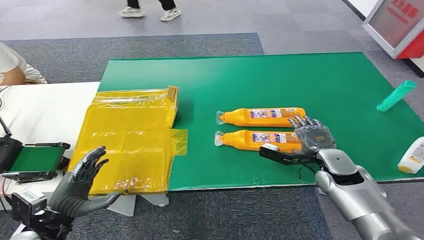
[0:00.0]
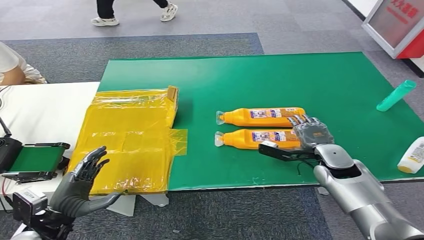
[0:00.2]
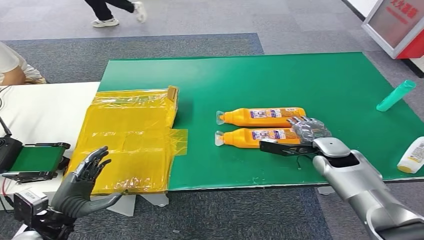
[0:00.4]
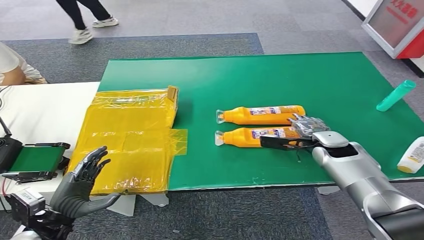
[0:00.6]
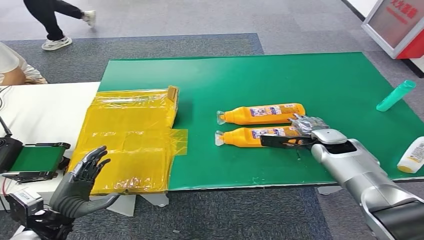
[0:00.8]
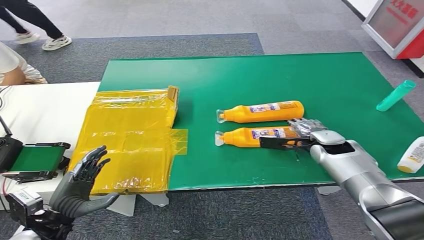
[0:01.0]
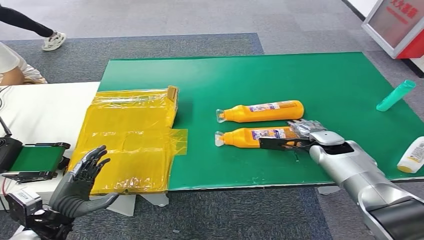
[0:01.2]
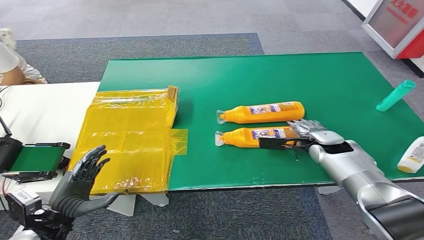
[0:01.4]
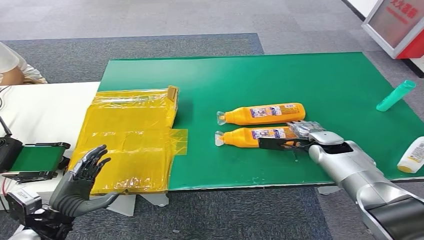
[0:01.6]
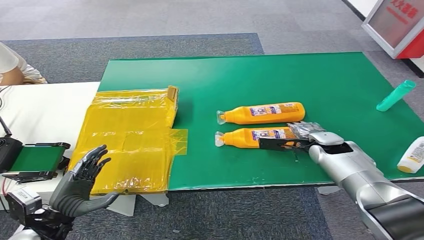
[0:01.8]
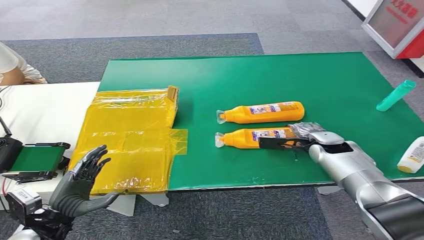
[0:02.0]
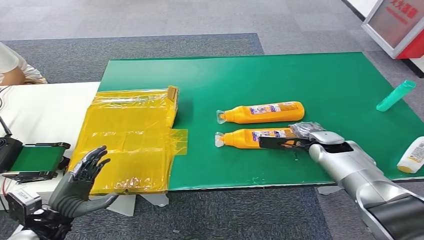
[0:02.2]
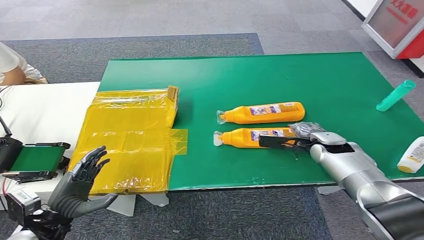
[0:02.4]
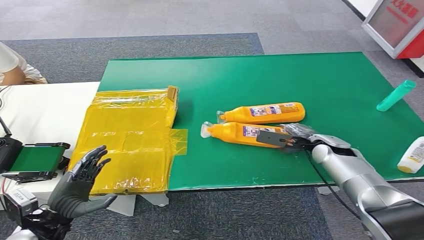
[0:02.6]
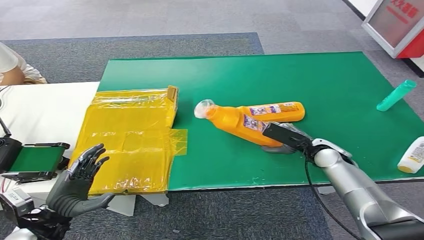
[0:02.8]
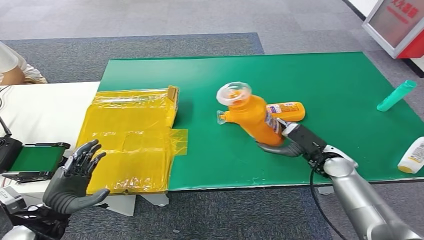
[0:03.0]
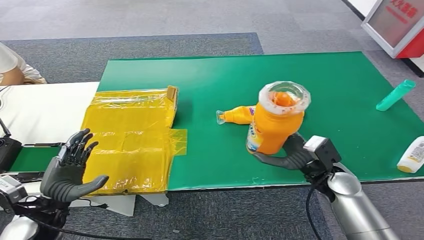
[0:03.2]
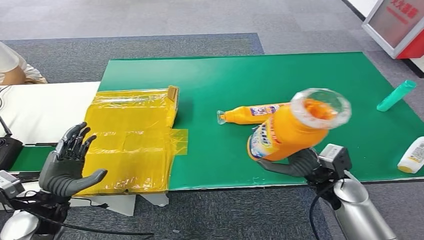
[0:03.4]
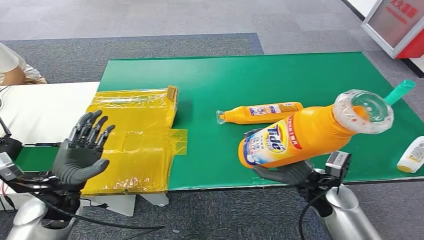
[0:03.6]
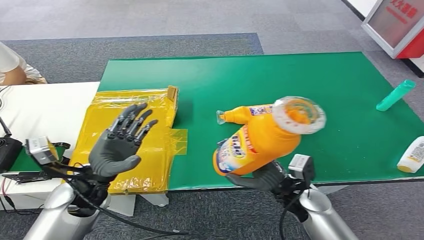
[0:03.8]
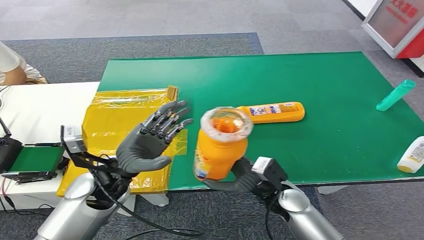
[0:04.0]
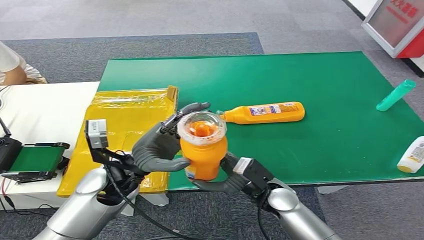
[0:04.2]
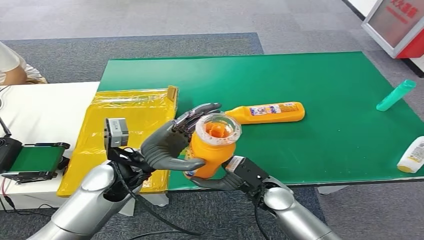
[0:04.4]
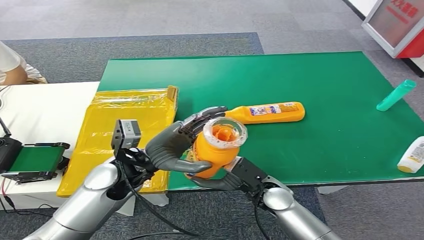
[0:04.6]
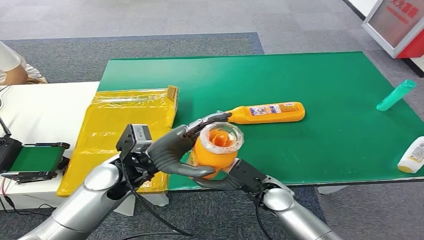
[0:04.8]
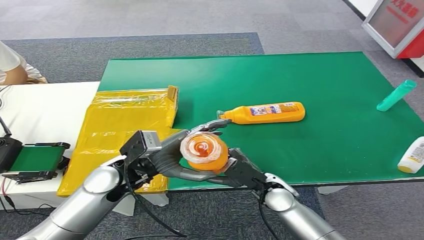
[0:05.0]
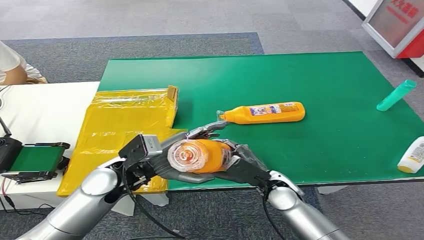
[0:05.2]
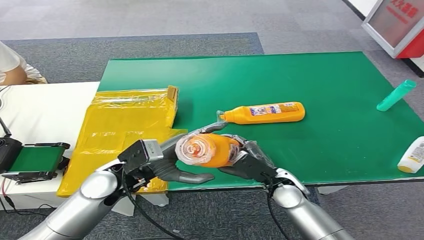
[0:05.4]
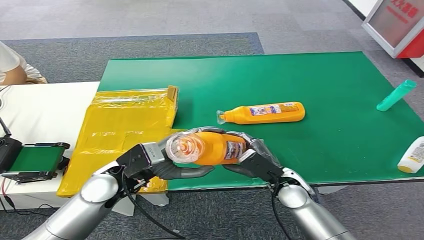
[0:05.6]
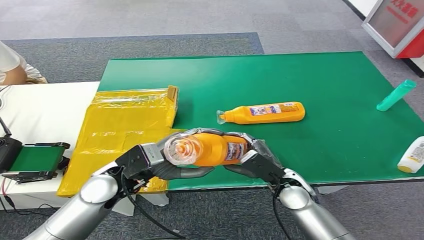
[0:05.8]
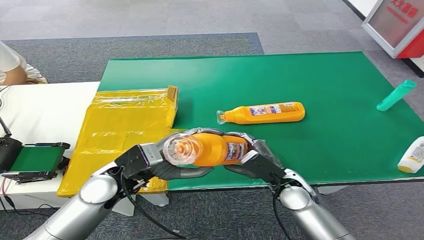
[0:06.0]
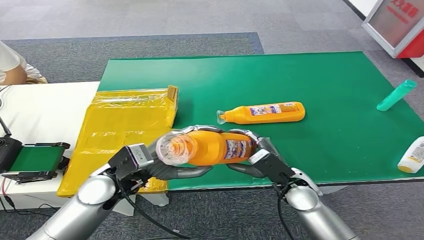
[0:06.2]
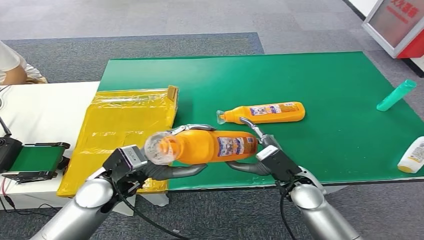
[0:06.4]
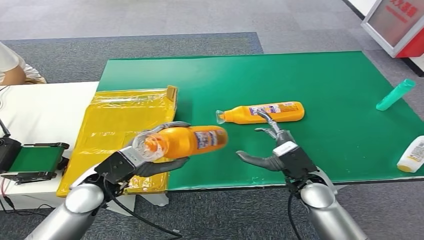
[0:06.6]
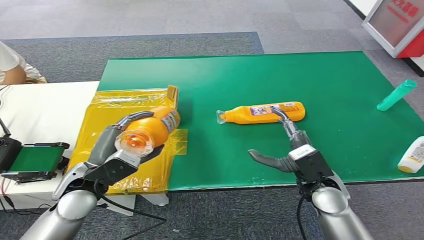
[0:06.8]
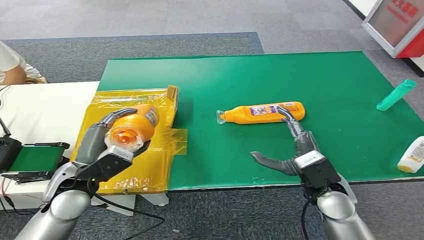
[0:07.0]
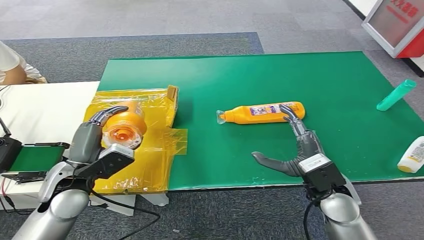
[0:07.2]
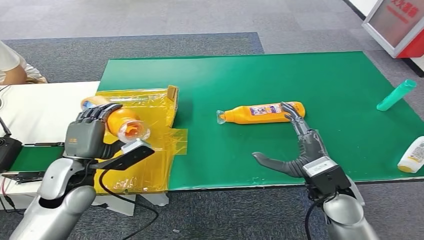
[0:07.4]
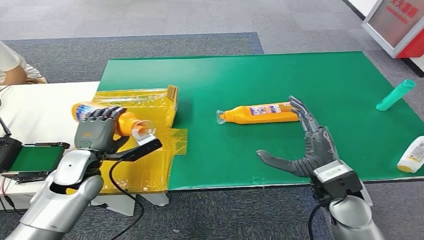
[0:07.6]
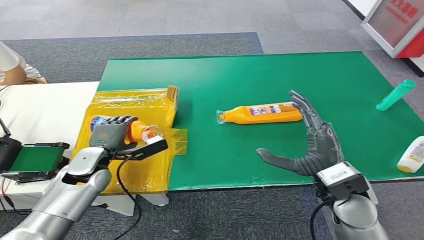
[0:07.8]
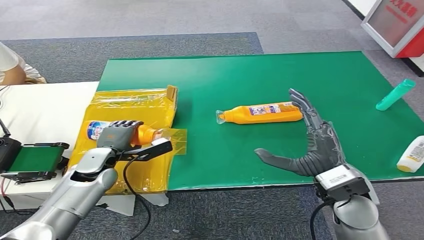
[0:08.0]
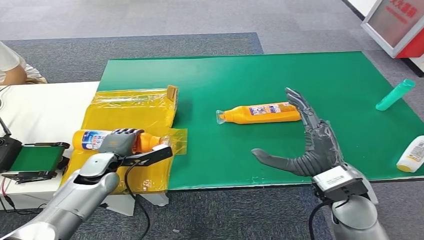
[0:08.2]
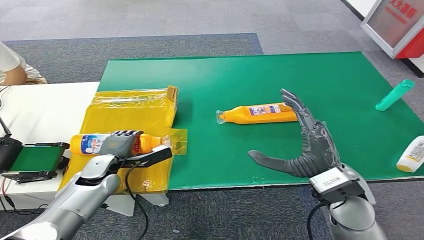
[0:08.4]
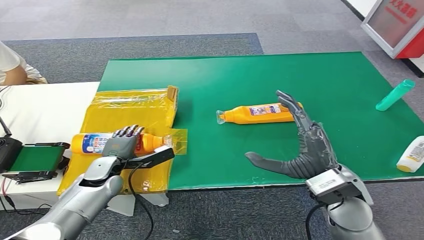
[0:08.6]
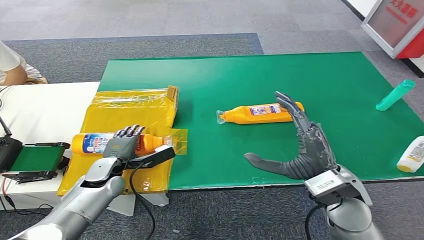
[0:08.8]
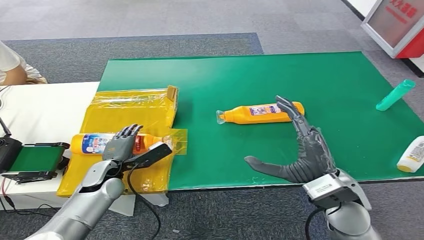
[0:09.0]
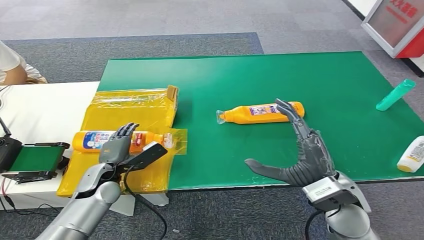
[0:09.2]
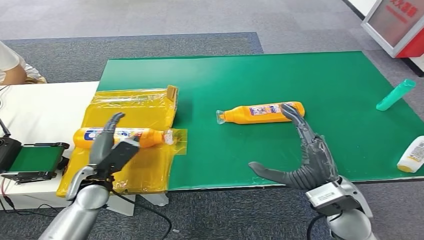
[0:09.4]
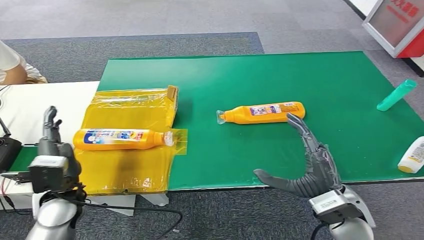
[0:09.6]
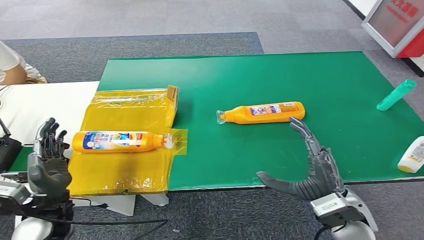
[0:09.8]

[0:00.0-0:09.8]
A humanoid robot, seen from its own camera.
Step, 0:00.0 to 0:03.2: Pick up the bottle from the table.
Step, 0:05.4 to 0:09.8: Turn the bottle to the front side.
0:05.6 to 0:07.0: The left hand is displaced to the left by about 10 cm; the right hand goes approximately 10 cm upward and to the right.
0:07.0 to 0:08.4: The left hand goes some 15 cm downward and forward, while the right hand is displaced upward by approximately 5 cm.
0:08.4 to 0:09.8: The right hand travels downward by roughly 5 cm; the left hand is displaced backward and upward by about 15 cm.

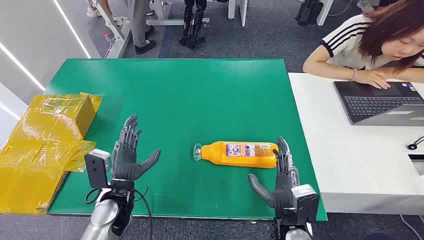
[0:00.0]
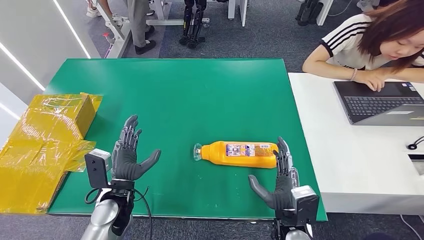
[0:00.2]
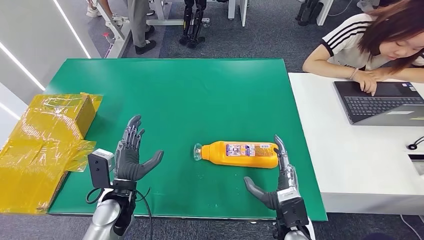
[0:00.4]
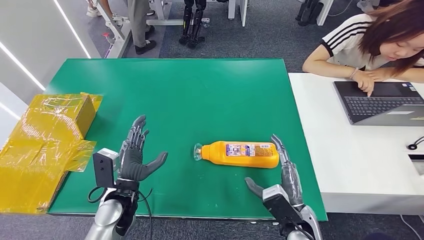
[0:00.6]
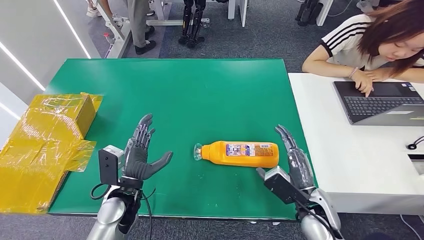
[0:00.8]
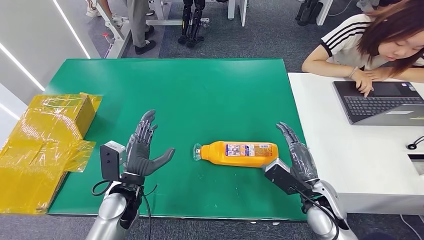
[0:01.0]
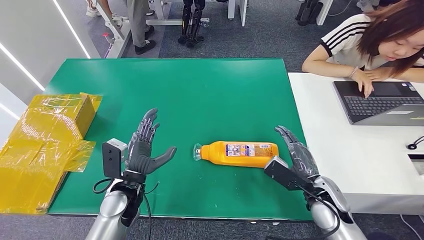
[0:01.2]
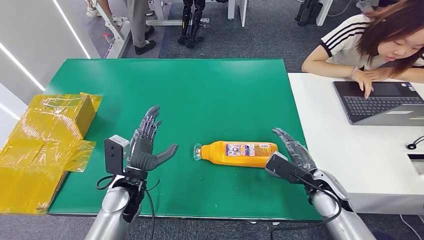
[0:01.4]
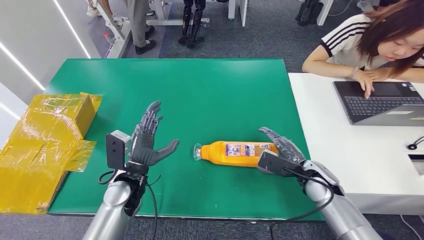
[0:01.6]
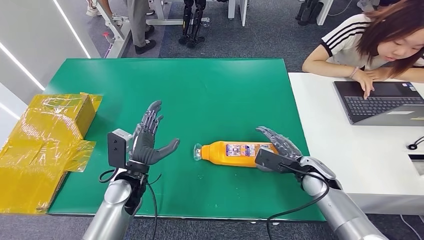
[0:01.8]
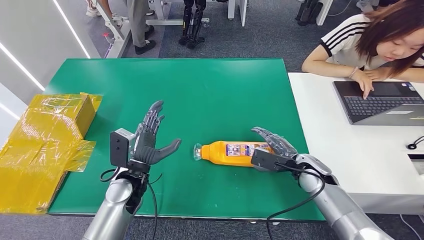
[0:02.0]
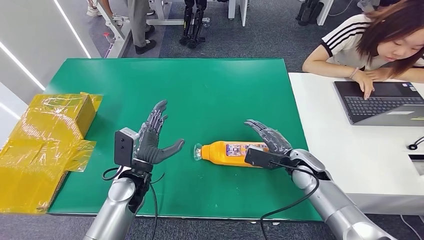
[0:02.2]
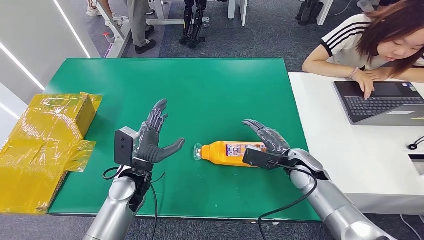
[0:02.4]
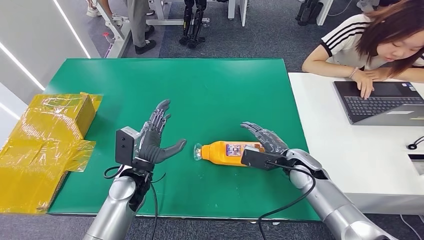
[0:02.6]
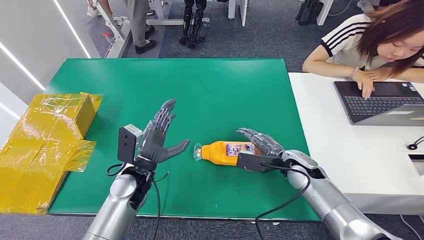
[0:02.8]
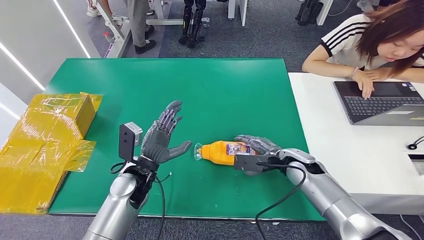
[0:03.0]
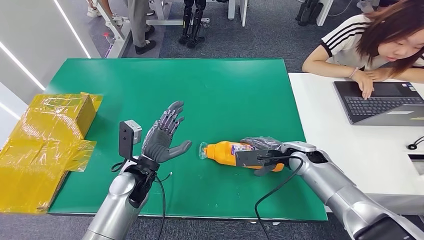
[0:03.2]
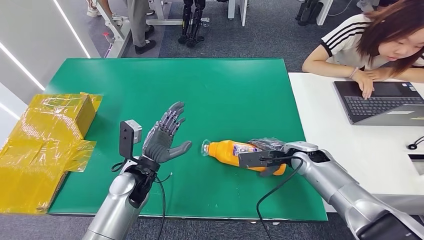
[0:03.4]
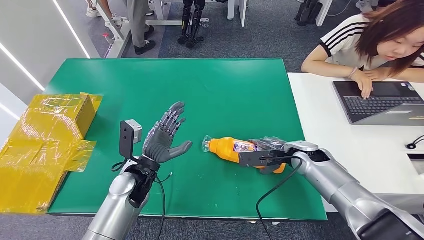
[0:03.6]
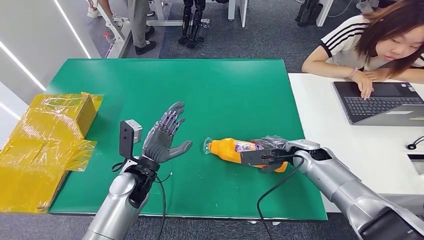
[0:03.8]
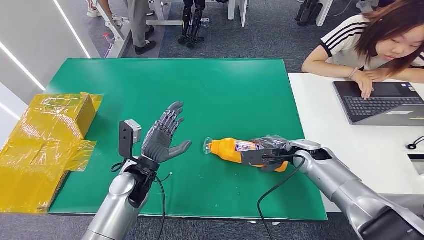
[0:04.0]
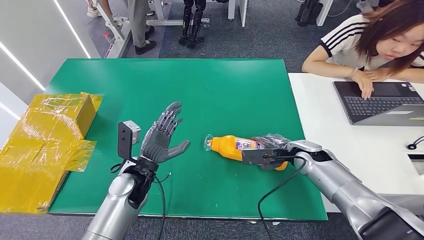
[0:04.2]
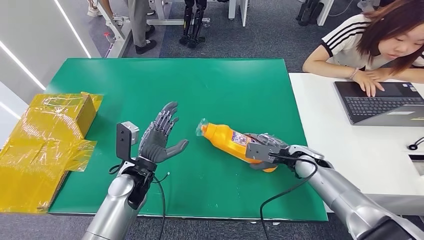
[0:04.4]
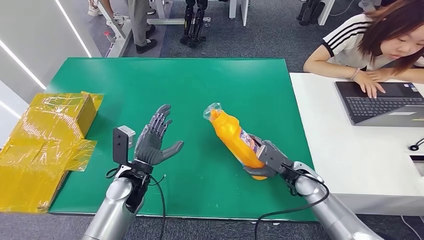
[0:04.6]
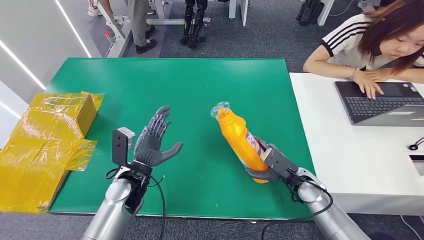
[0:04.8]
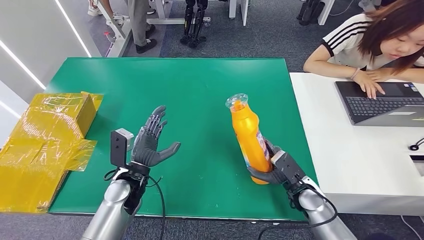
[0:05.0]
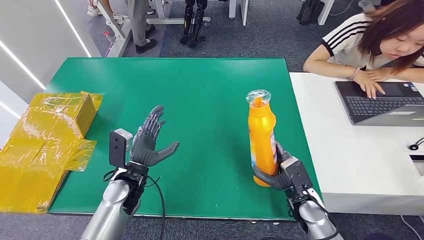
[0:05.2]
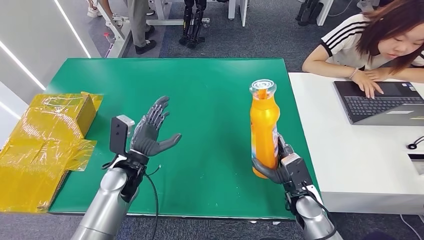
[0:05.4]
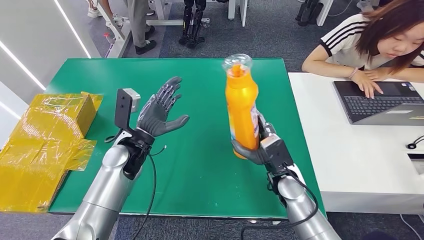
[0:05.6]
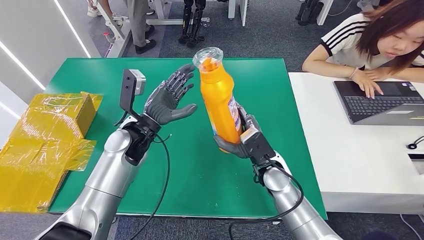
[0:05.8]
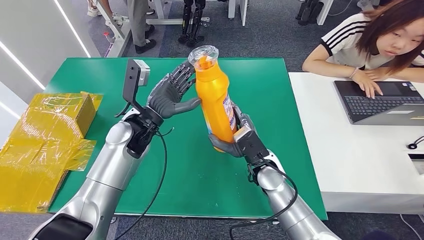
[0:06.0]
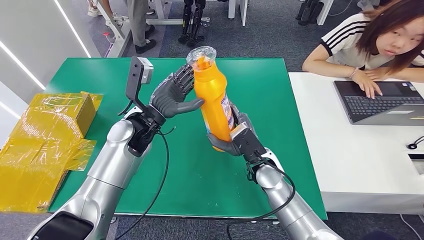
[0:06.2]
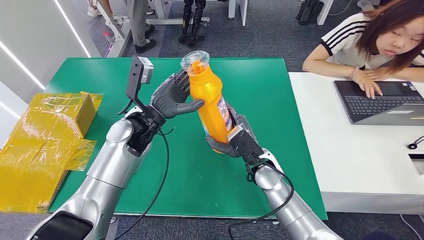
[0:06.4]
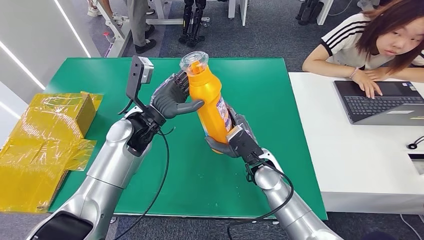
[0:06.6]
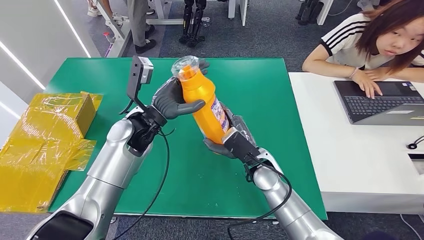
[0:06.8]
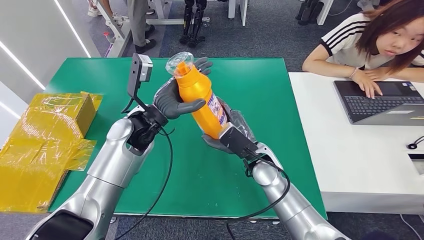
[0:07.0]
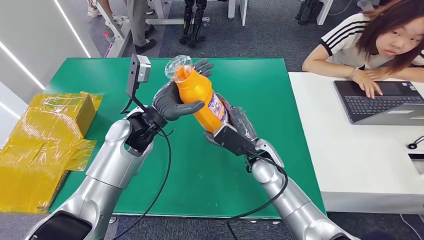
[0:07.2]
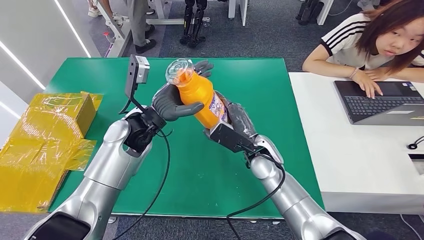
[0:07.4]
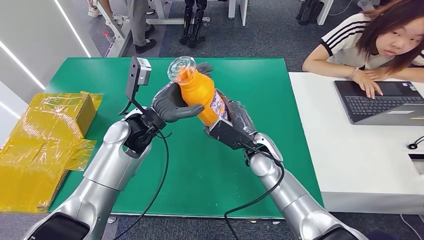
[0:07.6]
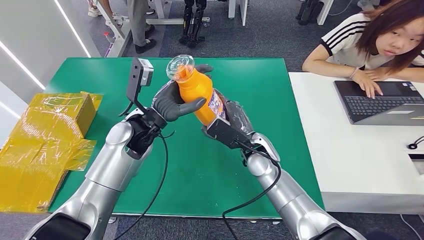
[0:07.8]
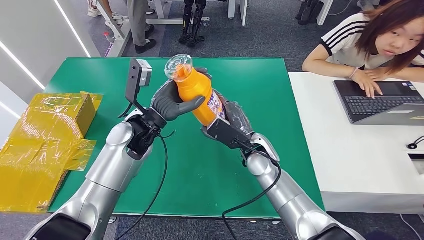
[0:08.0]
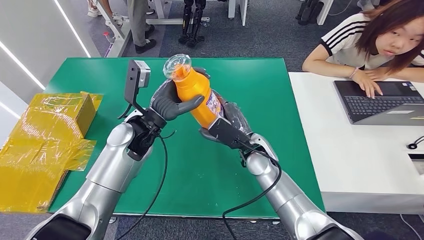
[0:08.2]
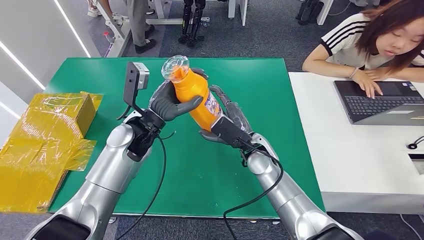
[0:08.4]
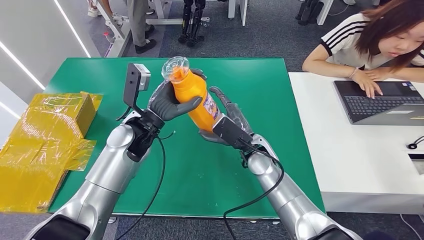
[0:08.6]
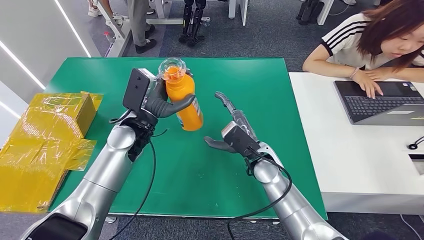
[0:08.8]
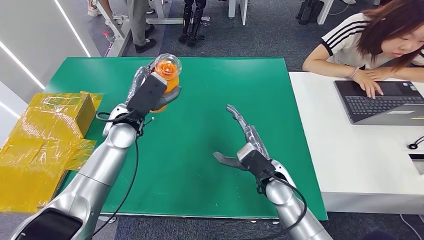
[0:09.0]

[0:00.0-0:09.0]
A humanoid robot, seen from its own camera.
Step, 0:00.0 to 0:07.4: Pick up the bottle from the table.
0:01.6 to 0:03.0: The right hand shifts by about 5 cm.
0:07.6 to 0:09.0: The right hand shifts about 5 cm backward.
